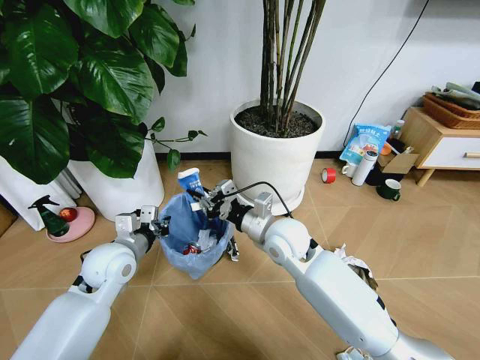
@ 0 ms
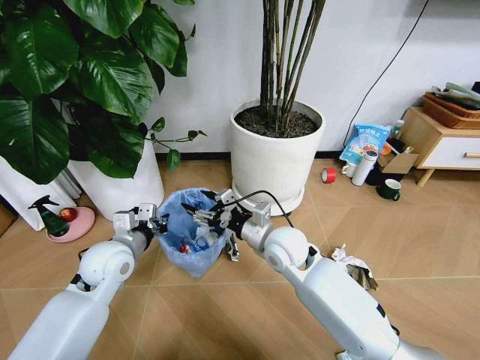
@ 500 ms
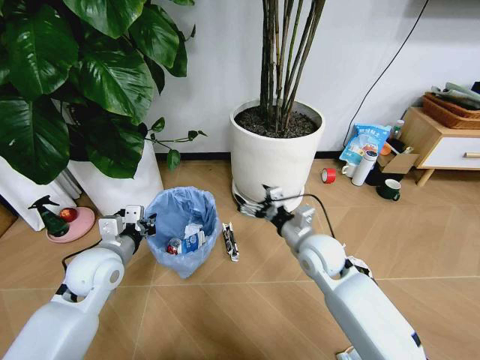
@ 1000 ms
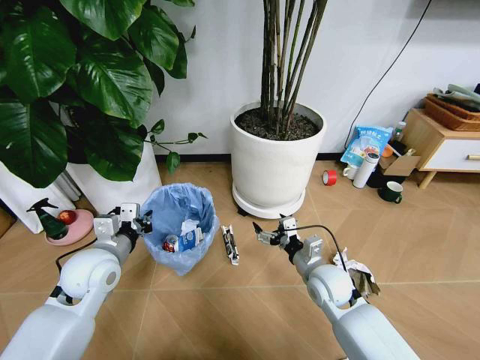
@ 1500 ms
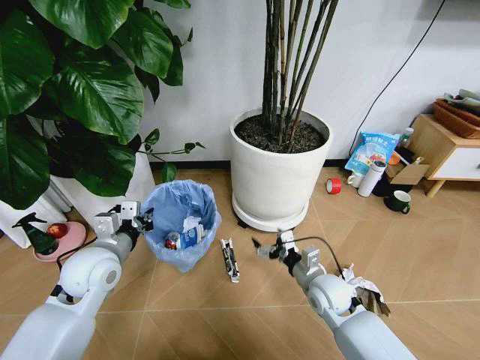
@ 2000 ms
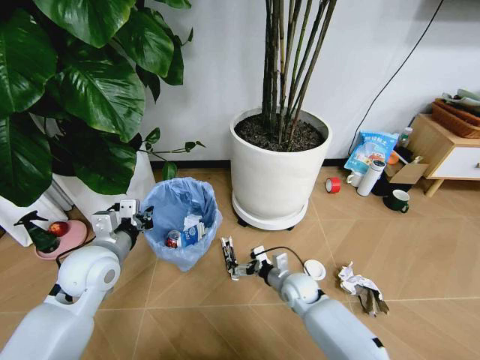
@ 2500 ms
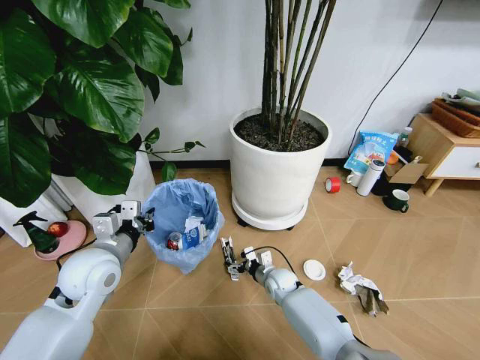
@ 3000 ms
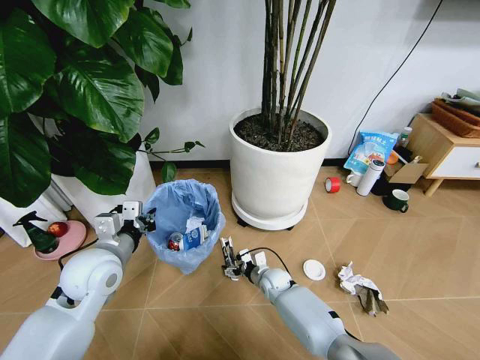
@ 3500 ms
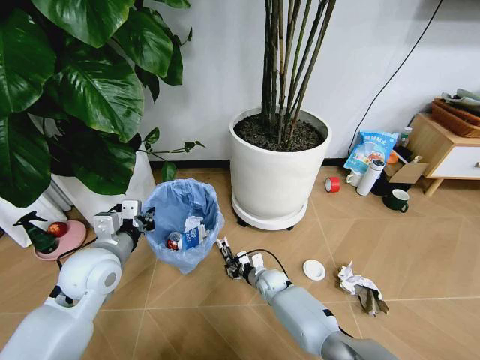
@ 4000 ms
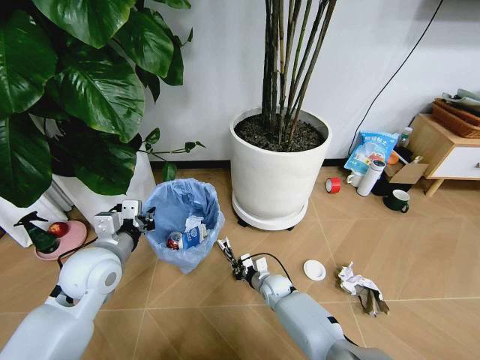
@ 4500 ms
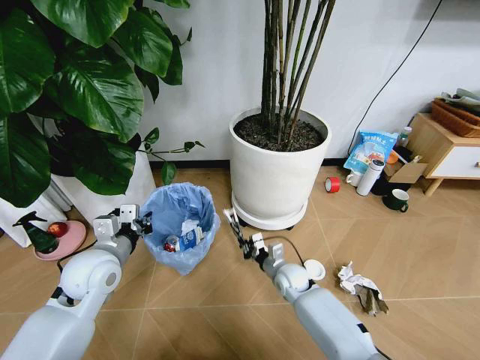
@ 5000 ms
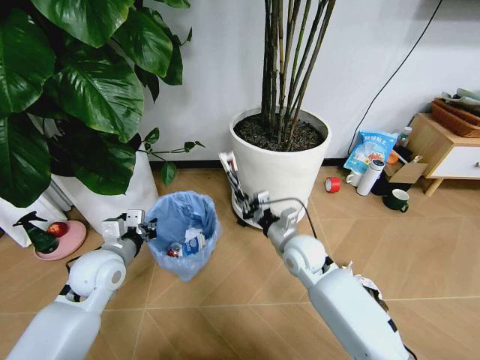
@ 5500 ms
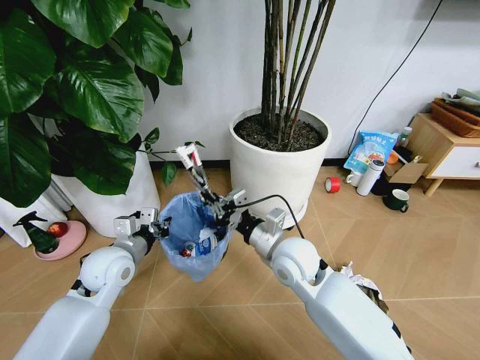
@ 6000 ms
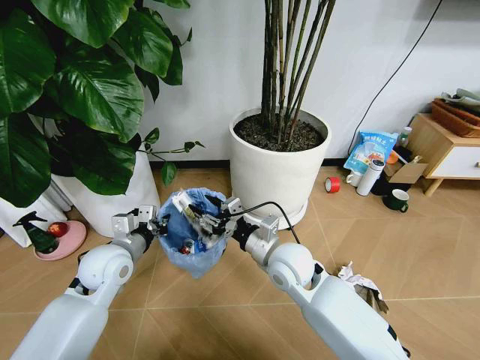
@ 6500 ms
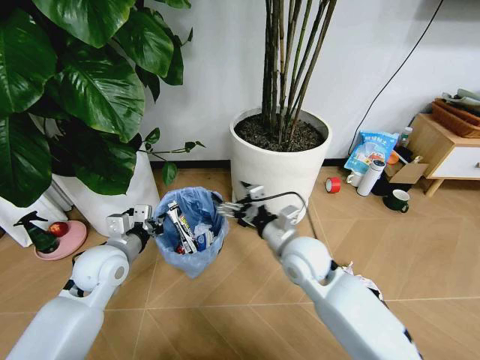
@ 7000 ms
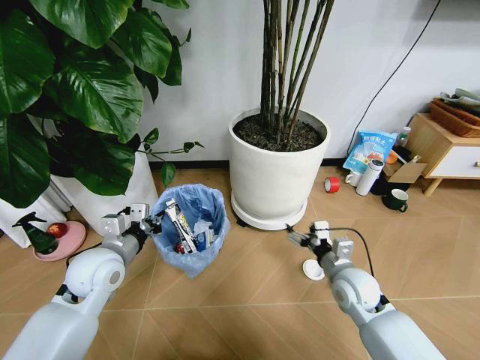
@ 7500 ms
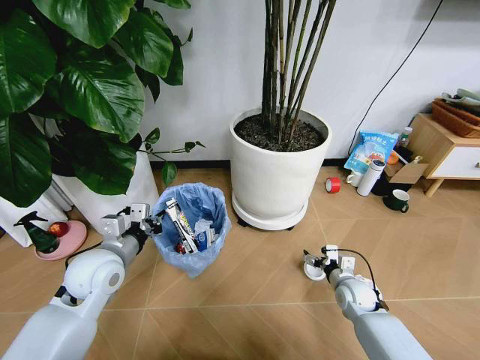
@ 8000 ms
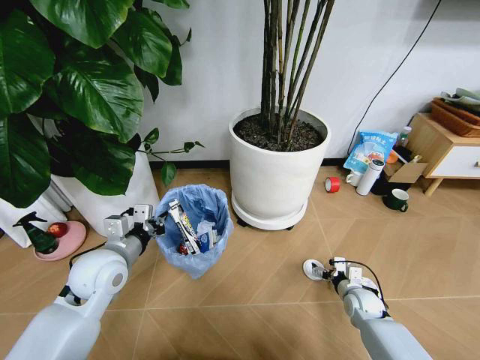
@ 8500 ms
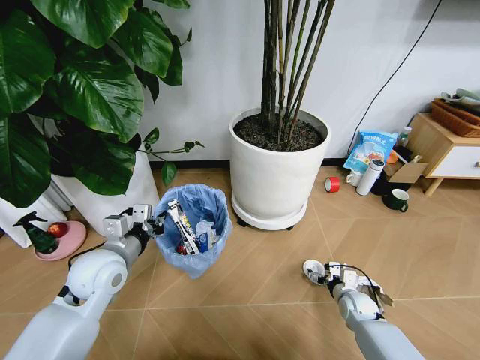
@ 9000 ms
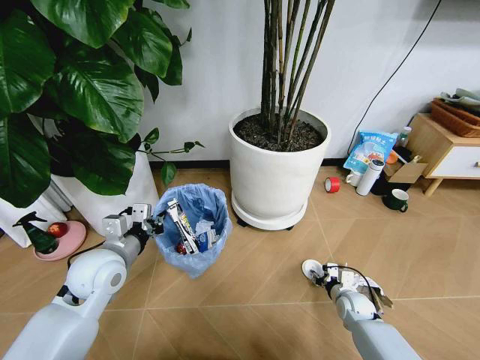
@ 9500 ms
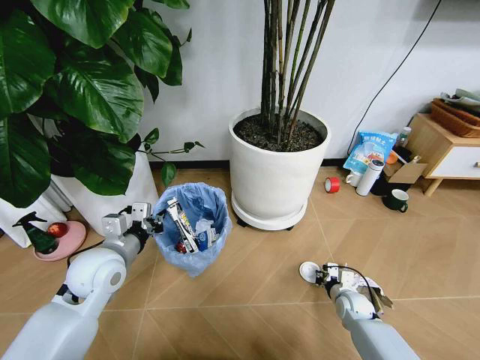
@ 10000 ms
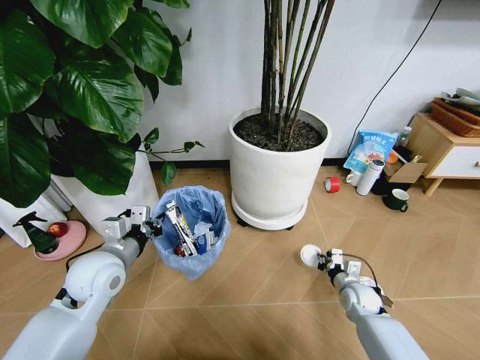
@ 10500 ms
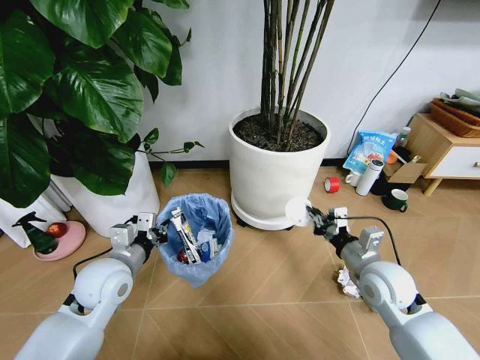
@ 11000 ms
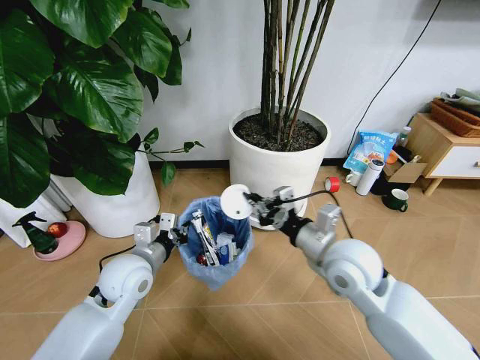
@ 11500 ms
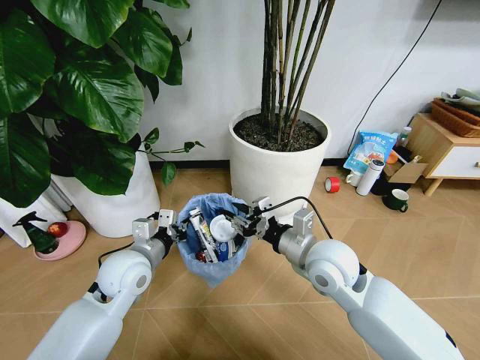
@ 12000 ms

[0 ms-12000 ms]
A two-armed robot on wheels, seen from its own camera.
Task of the whole recording: Pick up the trash bin and place the garbage on the floor into it.
0 ms to 2000 ms: The right gripper moves downward, to the right and backward, about 20 cm, and opens up.
2000 ms to 4000 ms: The right gripper shifts some 20 cm downward, to the left and forward, and closes its fingers.
4000 ms to 6000 ms: The left gripper shifts by about 5 cm. Meanwhile the right gripper travels upward by some 30 cm, and closes.
6000 ms to 8000 ms: The right gripper shifts some 30 cm downward and to the right, and opens up.
8000 ms to 10000 ms: The right gripper travels downward by roughly 5 cm, and closes up.
10000 ms to 12000 ms: The left gripper moves approximately 5 cm; the right gripper shifts roughly 35 cm upward and to the left, and opens up.

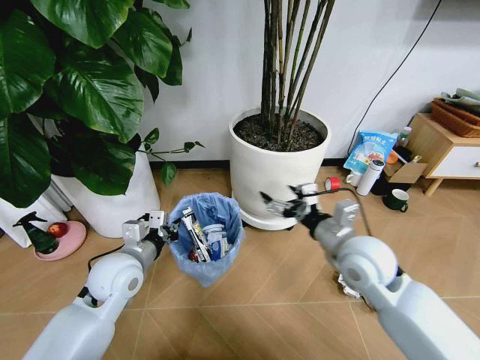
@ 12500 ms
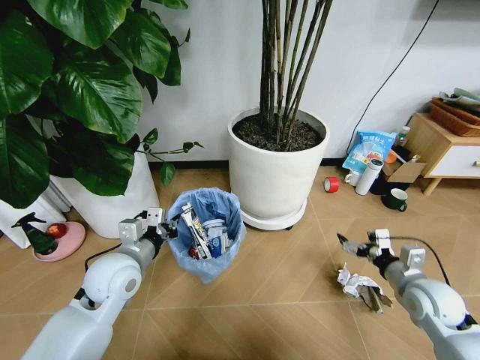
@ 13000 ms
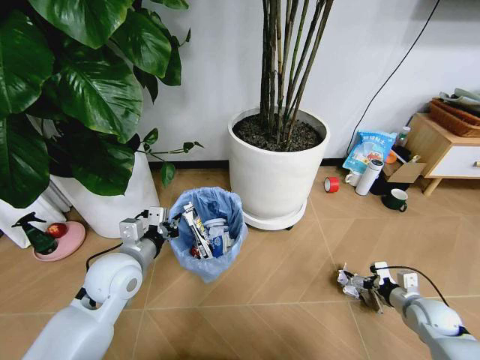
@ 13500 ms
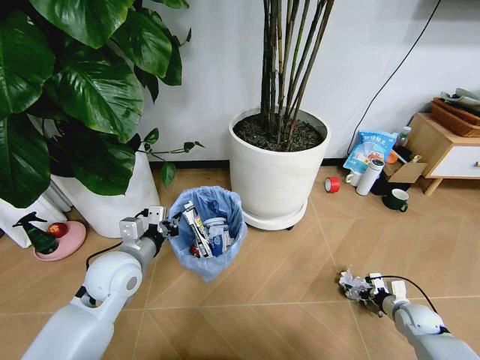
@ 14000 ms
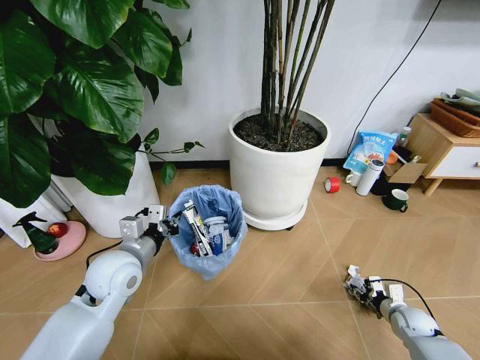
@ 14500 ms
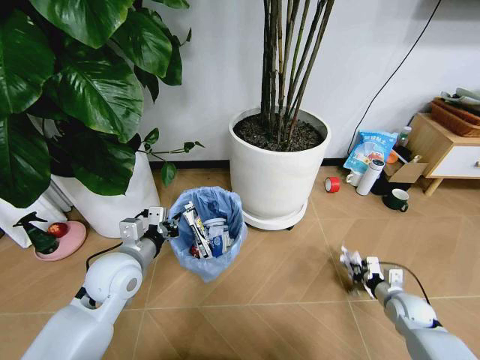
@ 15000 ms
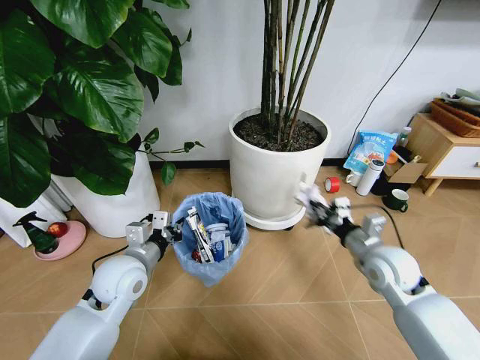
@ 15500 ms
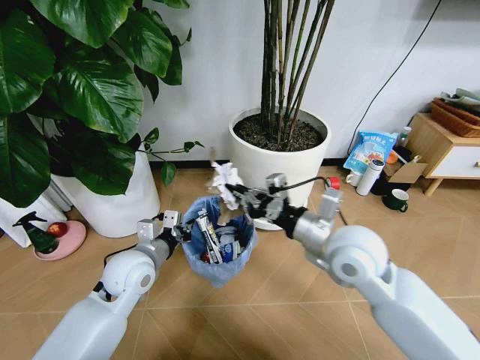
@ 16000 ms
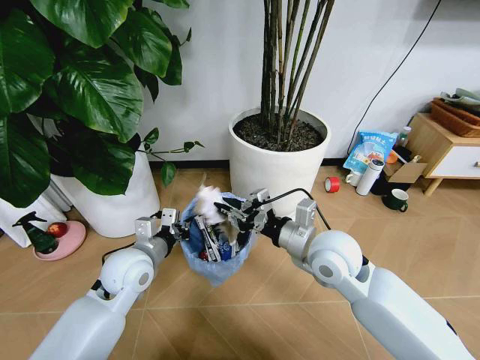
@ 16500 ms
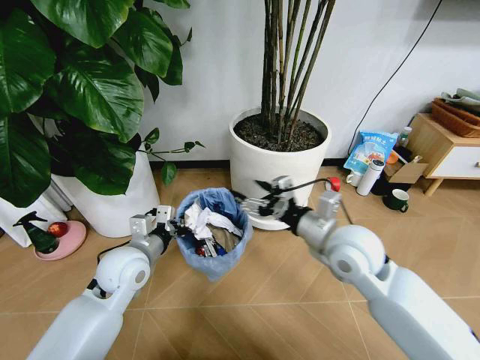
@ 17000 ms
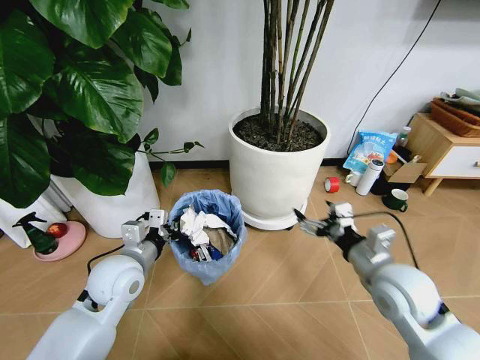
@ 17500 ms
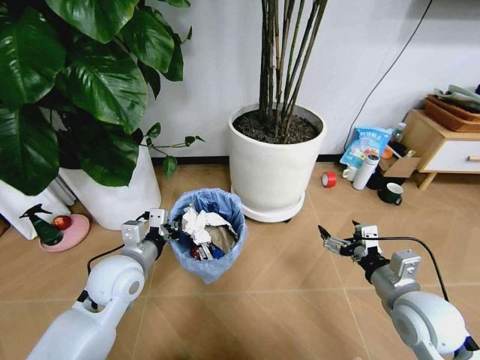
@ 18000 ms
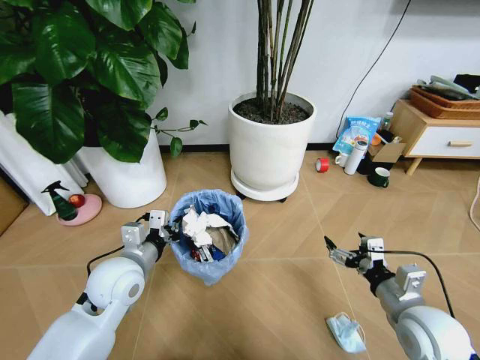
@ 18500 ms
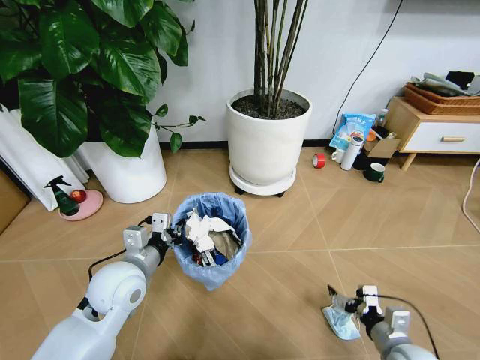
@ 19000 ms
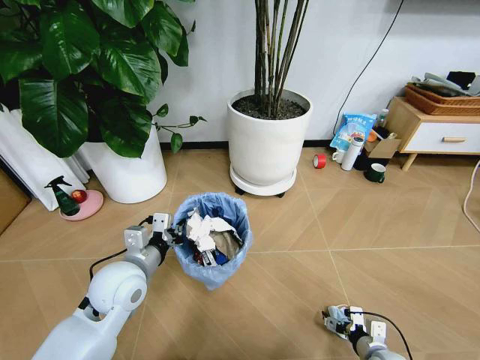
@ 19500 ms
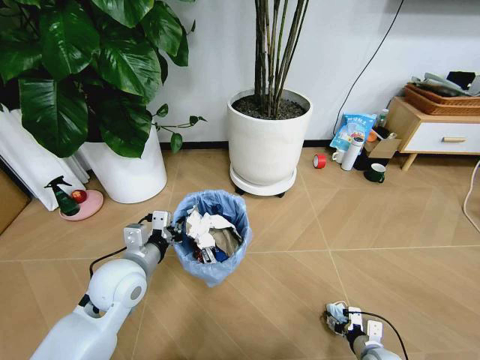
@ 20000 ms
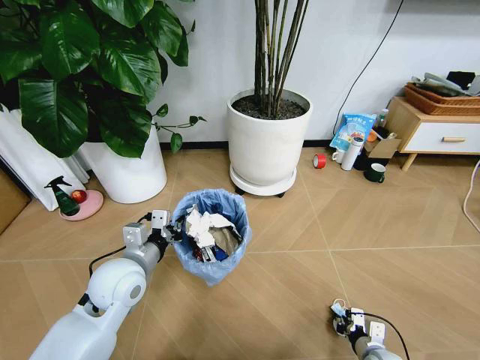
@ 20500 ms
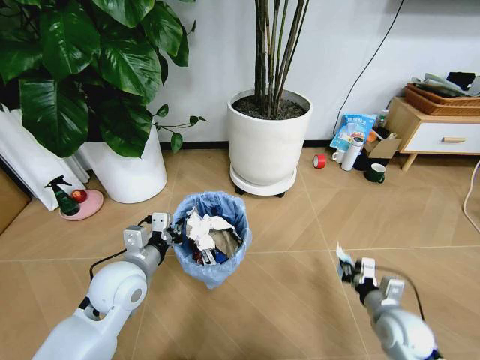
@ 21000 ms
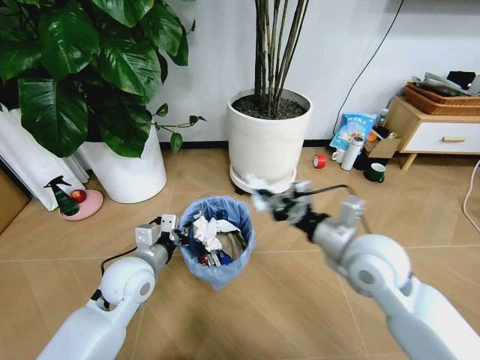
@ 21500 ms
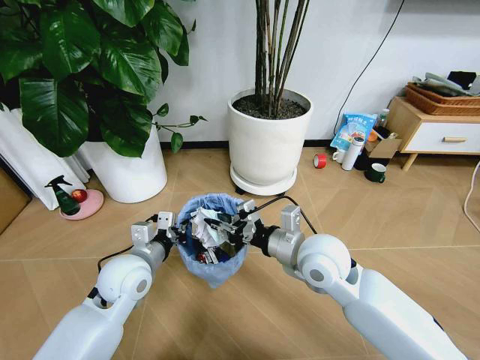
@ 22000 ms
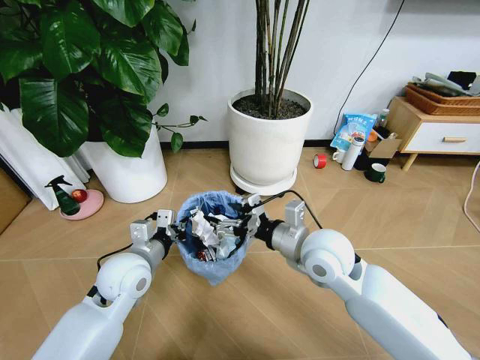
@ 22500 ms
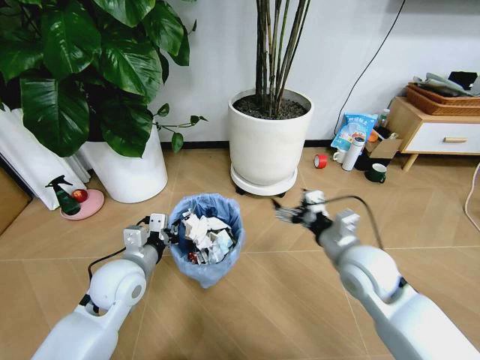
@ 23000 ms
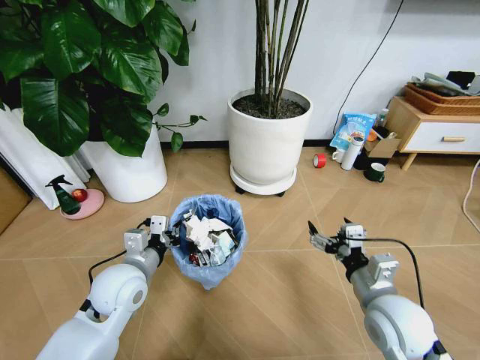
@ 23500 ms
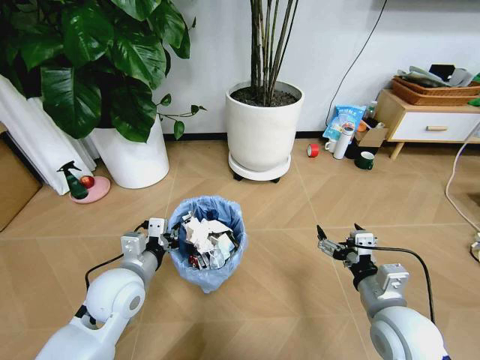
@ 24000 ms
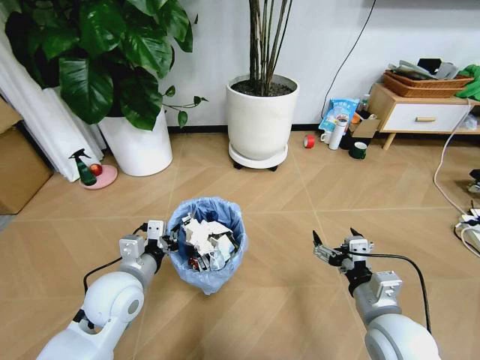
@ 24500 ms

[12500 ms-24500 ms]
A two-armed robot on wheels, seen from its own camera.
Task of the whole recording: Pick up the trash bin and place the garbage on the floor into it.
12500 ms to 14500 ms: The right gripper moves downward and to the right, some 40 cm, and closes its fingers.
14500 ms to 16500 ms: The right gripper shifts about 40 cm upward and to the left.
16500 ms to 18500 ms: The right gripper goes approximately 20 cm to the right, backward and downward, and opens.
18500 ms to 20500 ms: The right gripper travels downward by approximately 25 cm, and closes its fingers.
20500 ms to 22500 ms: The right gripper shifts approximately 40 cm upward, to the left and forward, and opens up.
22500 ms to 24500 ms: The right gripper moves backward, to the right and downward, roughly 20 cm.

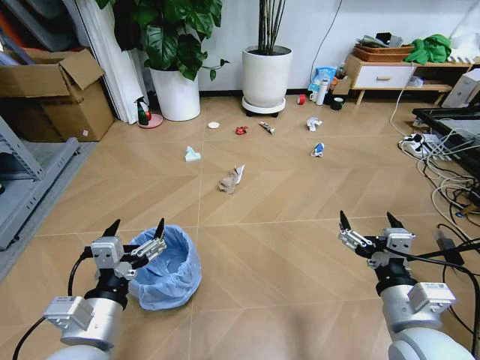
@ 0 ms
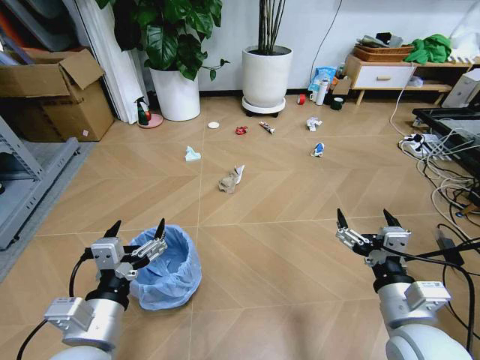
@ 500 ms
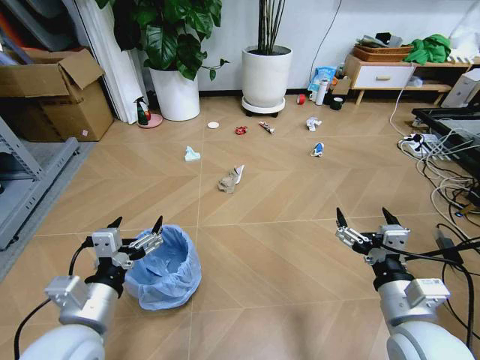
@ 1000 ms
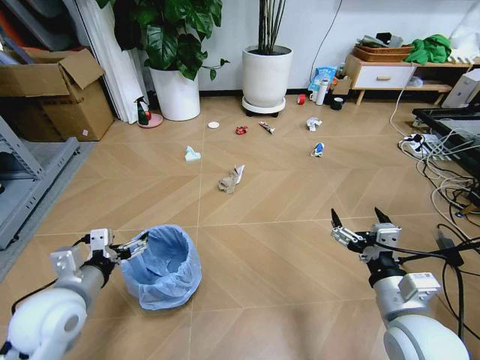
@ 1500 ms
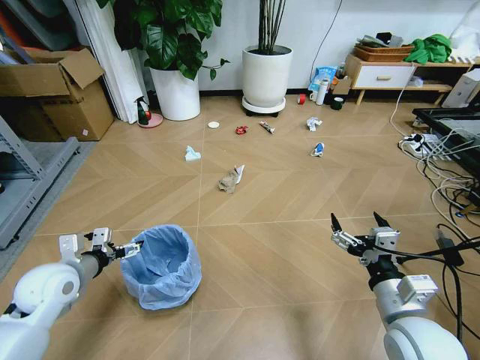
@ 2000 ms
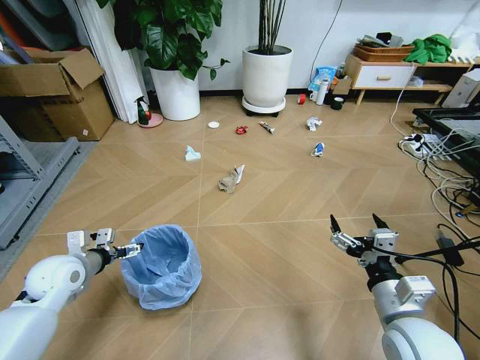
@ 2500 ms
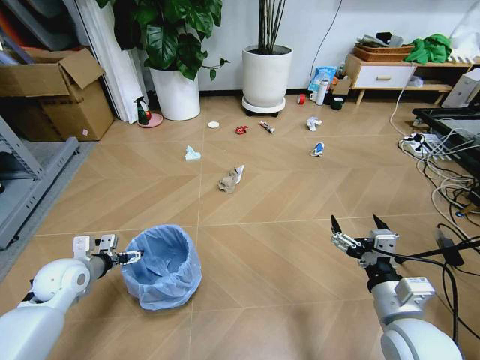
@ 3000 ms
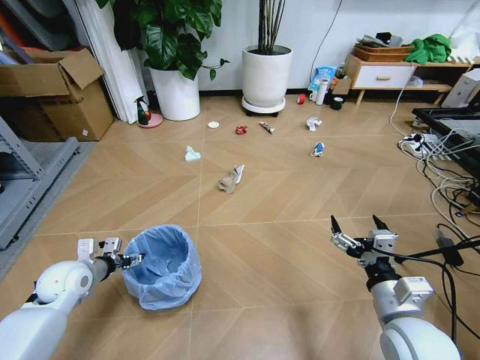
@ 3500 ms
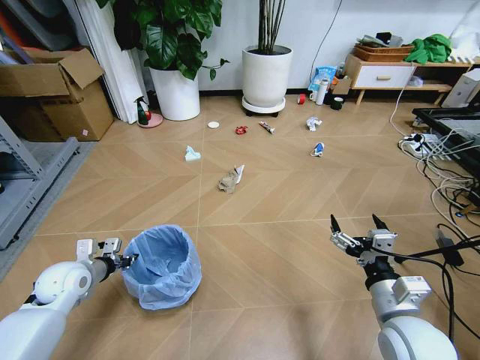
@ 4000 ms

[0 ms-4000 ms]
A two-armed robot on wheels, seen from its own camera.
Task of the whole recording: Pick up the trash bin and place the garbage on the floor into it.
2000 ms to 4000 ms: The left gripper moves downward, about 5 cm, and closes its fingers.
